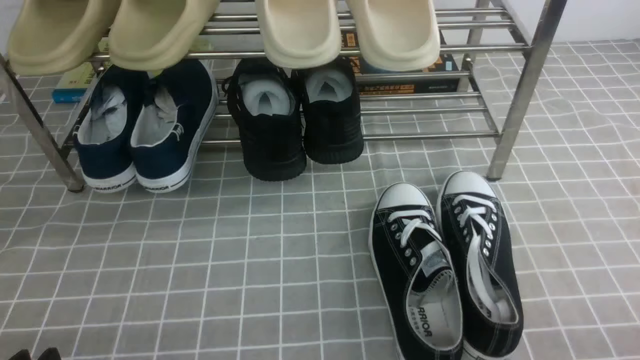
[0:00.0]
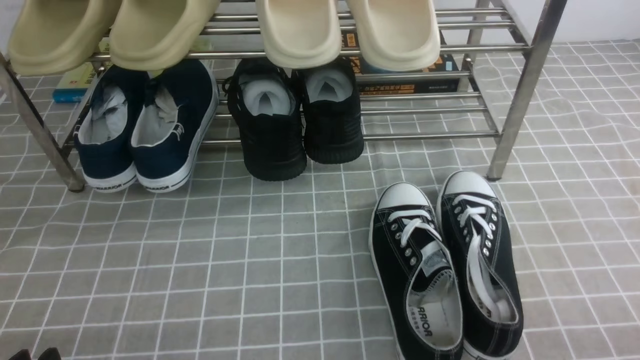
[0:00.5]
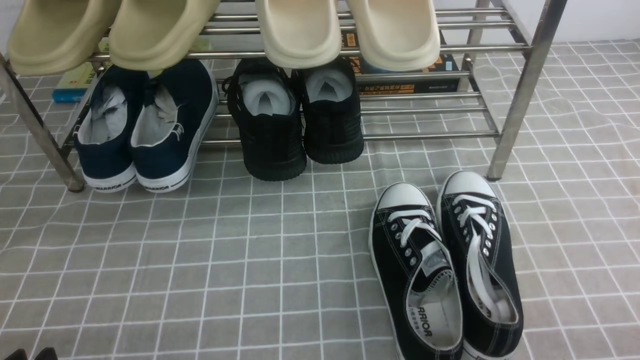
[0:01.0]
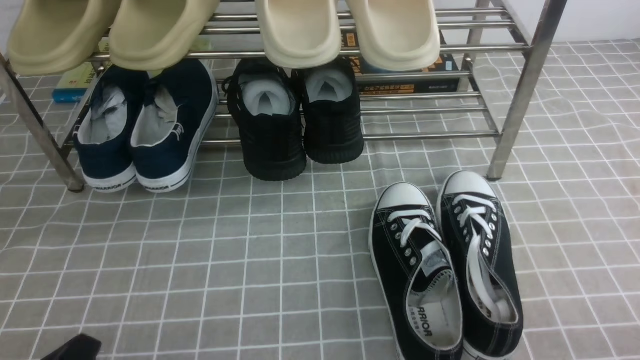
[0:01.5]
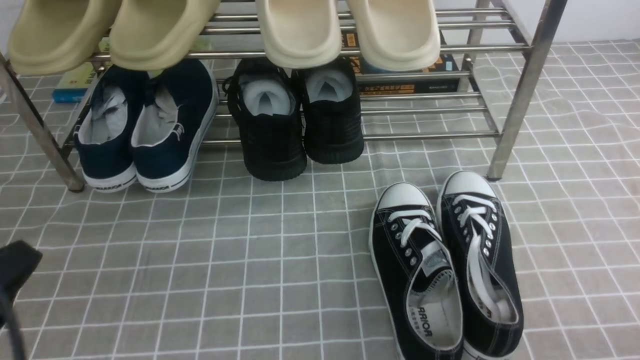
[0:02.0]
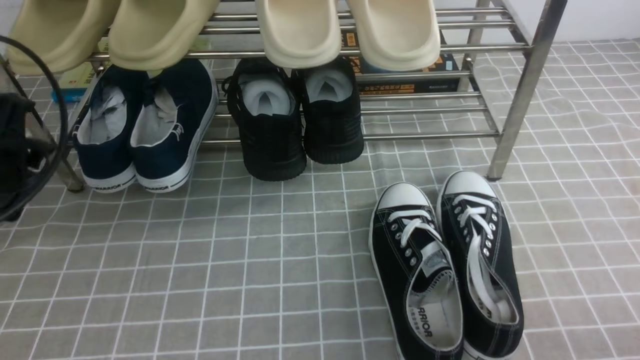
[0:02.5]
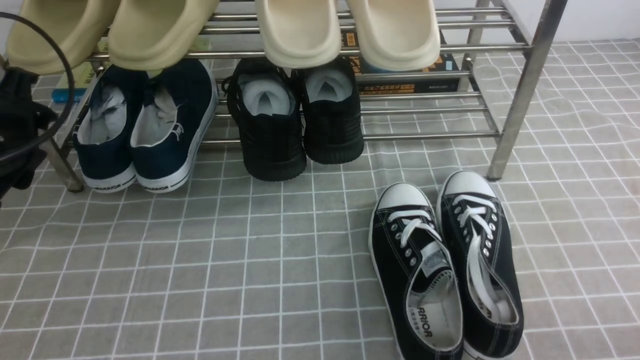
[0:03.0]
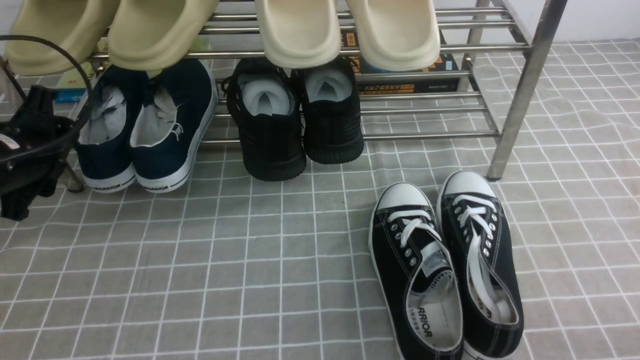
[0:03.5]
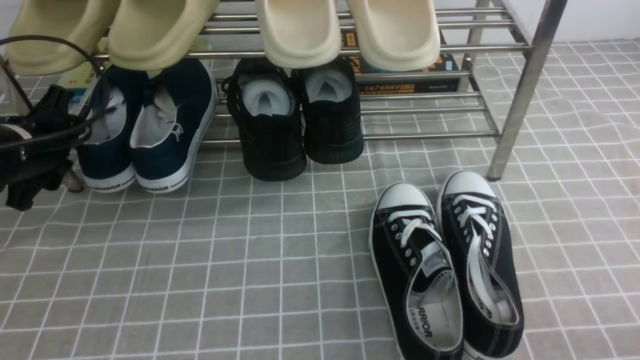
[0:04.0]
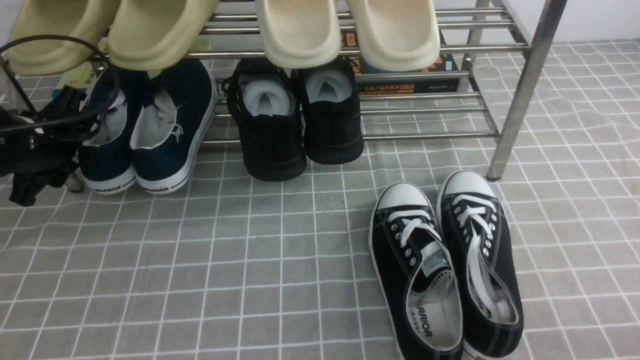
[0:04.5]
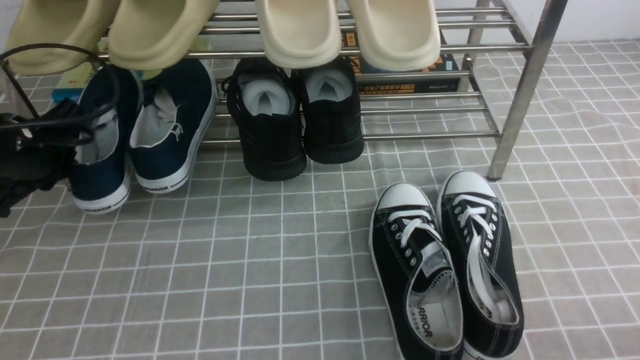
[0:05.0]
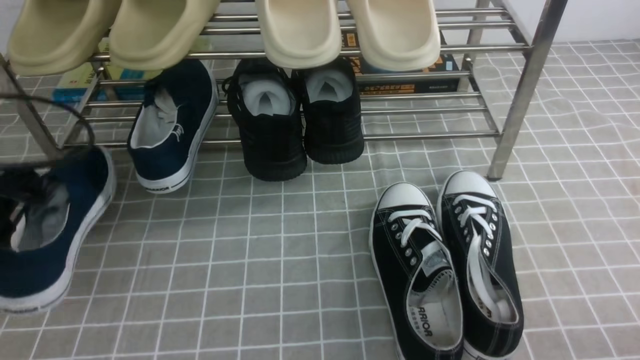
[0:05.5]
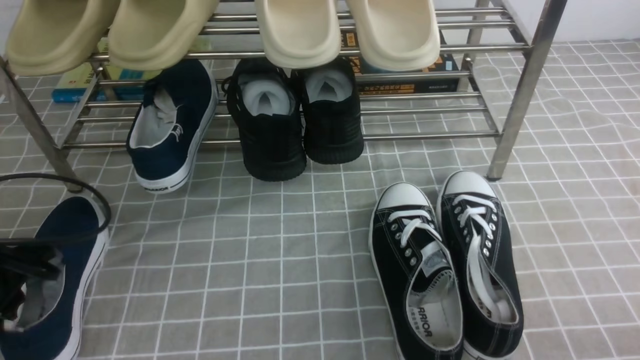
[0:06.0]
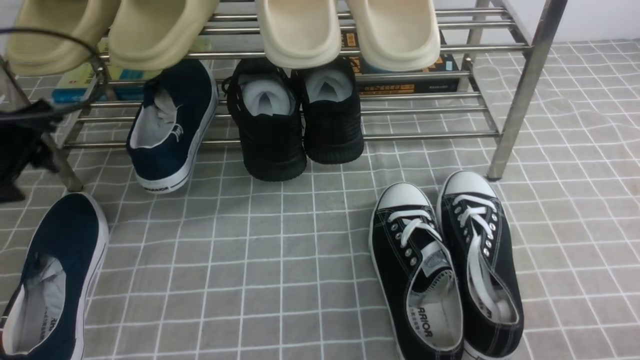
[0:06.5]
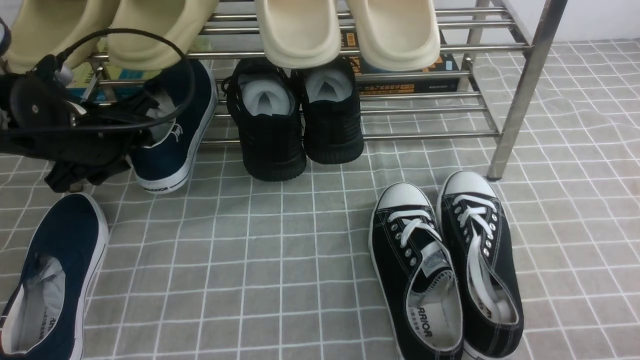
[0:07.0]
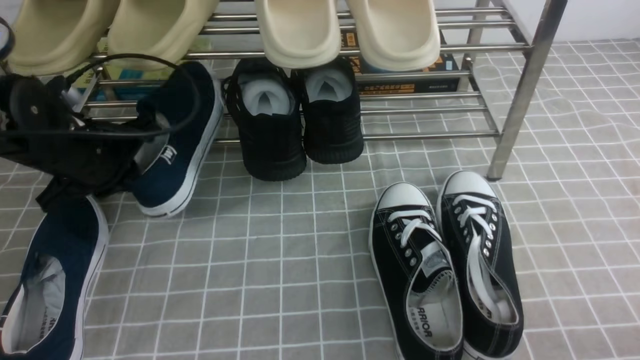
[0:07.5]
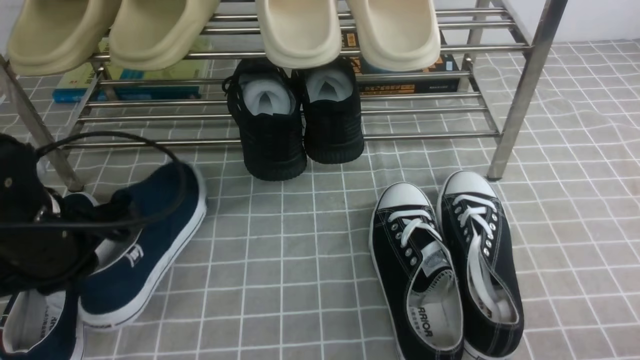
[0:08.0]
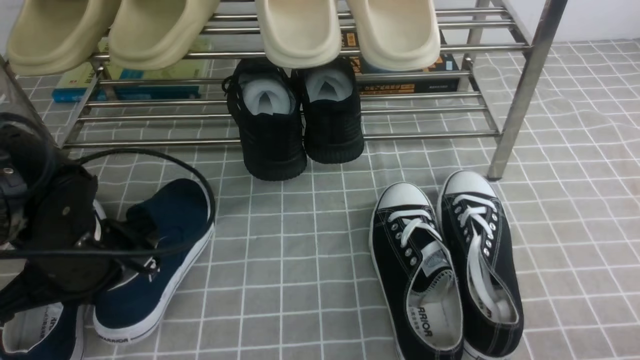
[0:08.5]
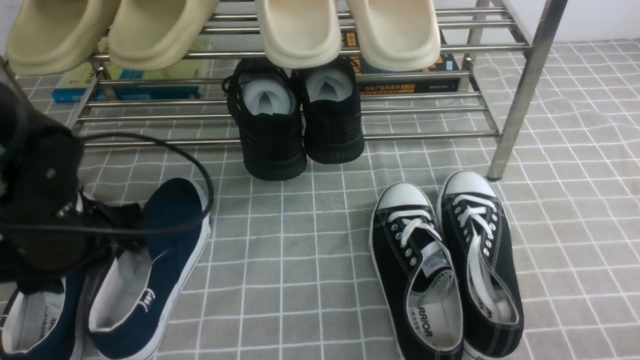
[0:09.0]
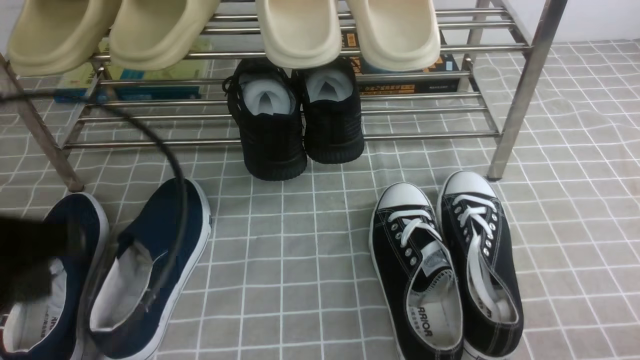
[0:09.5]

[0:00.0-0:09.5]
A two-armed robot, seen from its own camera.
Step, 0:00.0 to 0:04.5: use the left arm to clamp a shoe on the left side of the shoe rack.
Step, 0:05.0 to 0:06.5: Use your left arm to remove the clamped shoe from the shoe rack and put it down.
Step, 0:07.5 to 0:09.0: Use your left arm to remove the clamped shoe from the shoe rack and put it down.
0:00.0 to 0:02.0: The left gripper moves upward, some 10 cm, and closes its fingers.
0:02.0 to 0:04.0: The left gripper is displaced forward by approximately 25 cm, and opens its fingers.
0:04.0 to 0:05.5: The left gripper shifts roughly 10 cm backward, and closes.
0:05.5 to 0:07.5: The left gripper travels to the right and forward by about 10 cm, and opens, then closes again.
0:07.5 to 0:09.5: The left gripper shifts roughly 20 cm backward and upward.

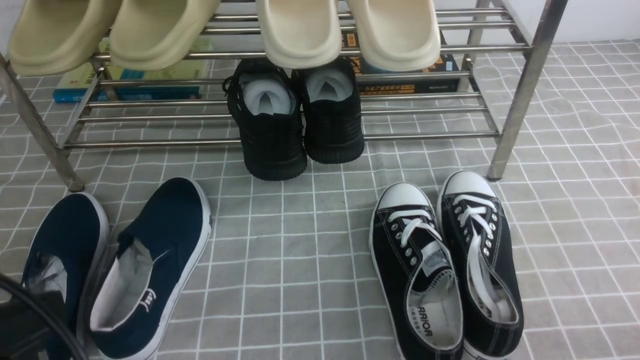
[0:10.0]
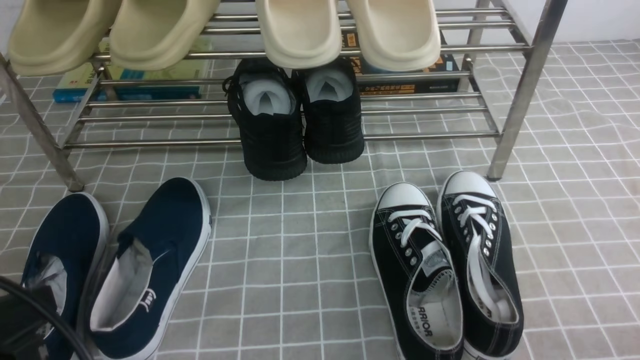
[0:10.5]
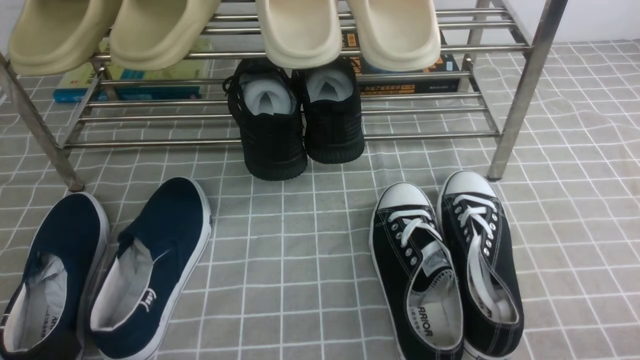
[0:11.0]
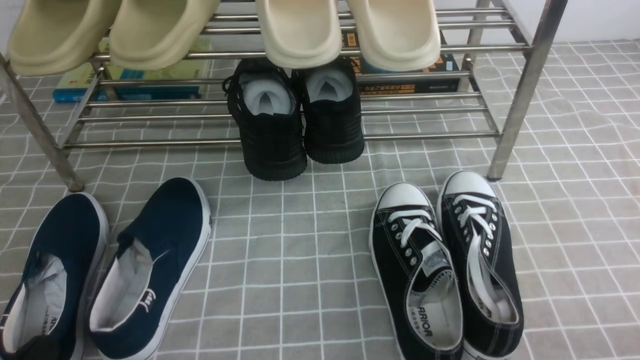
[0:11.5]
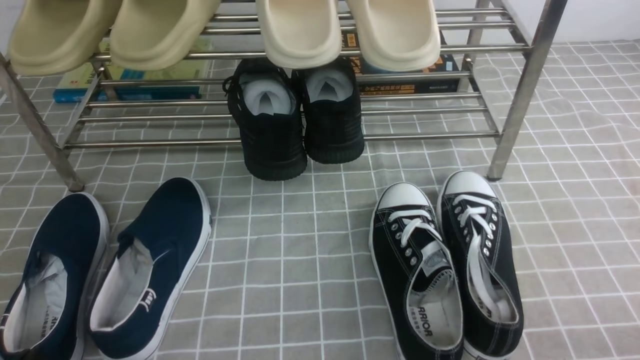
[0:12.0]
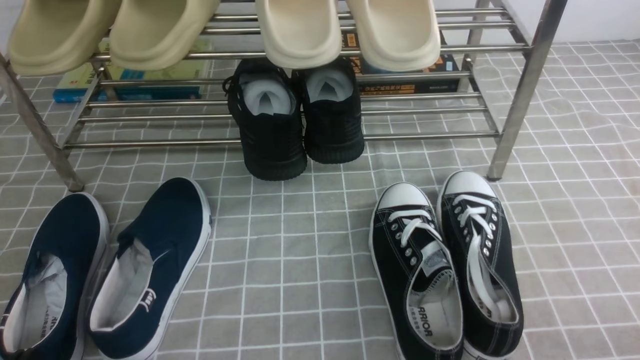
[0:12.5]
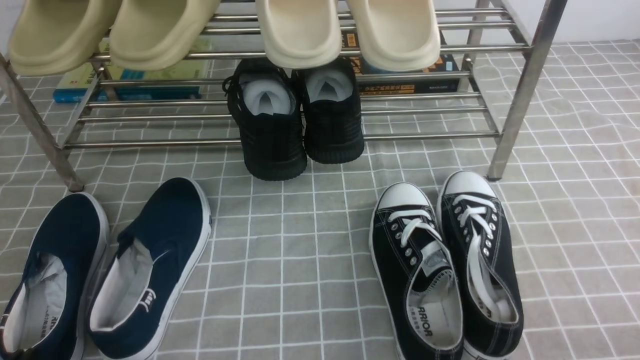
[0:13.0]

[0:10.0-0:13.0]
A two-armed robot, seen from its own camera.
0:10.0 to 0:11.5: The left gripper shifts about 15 cm downward.

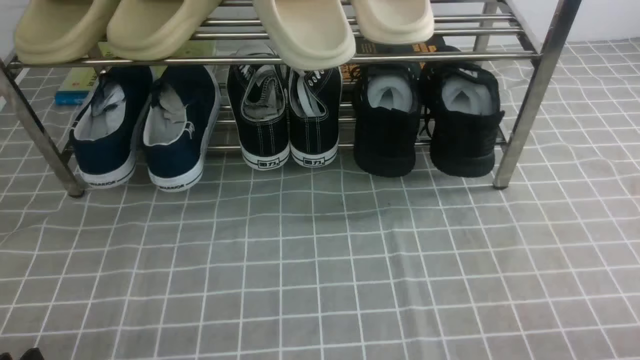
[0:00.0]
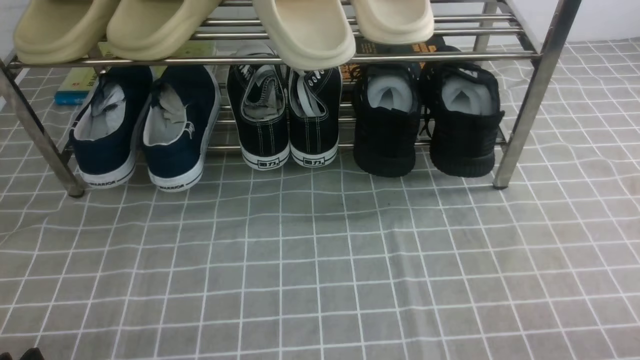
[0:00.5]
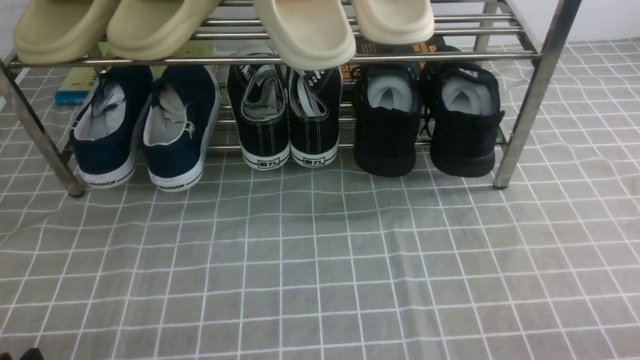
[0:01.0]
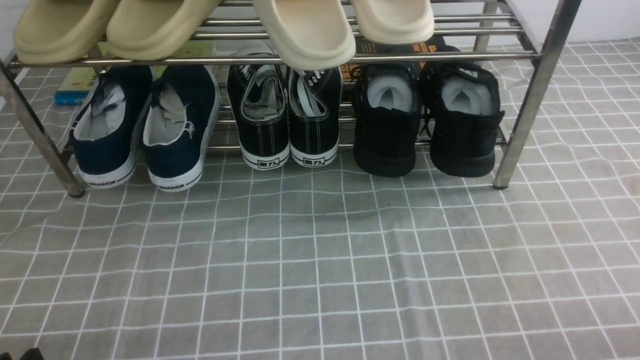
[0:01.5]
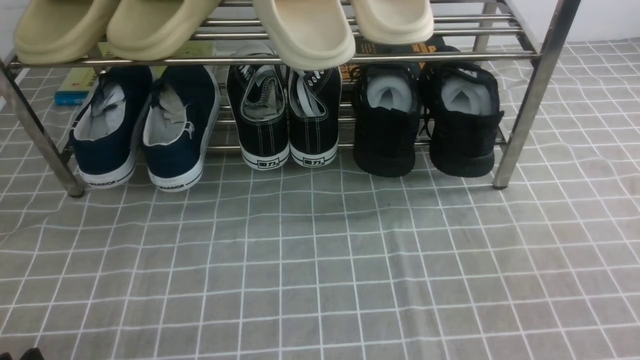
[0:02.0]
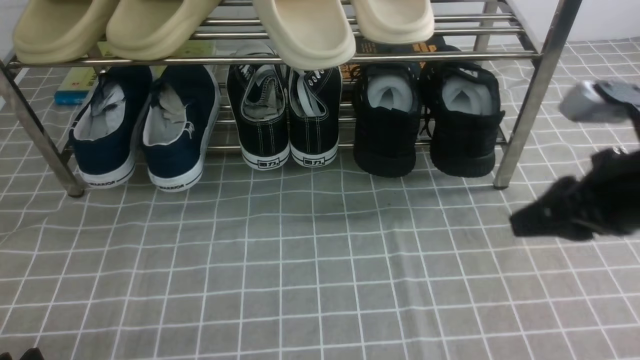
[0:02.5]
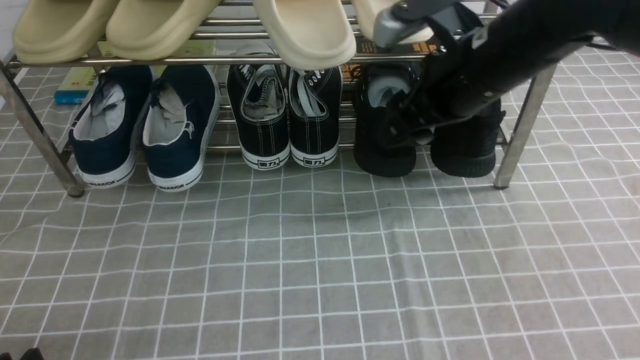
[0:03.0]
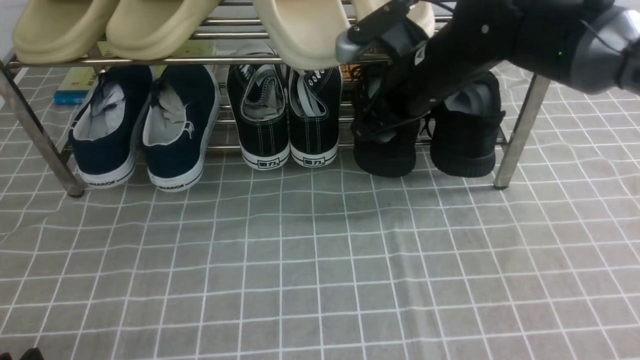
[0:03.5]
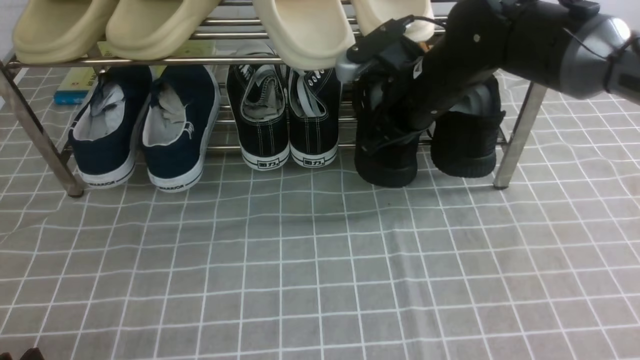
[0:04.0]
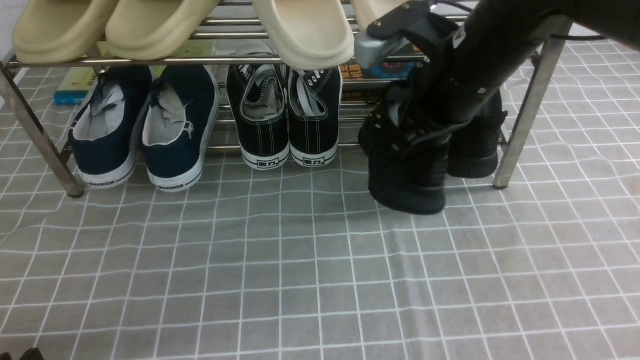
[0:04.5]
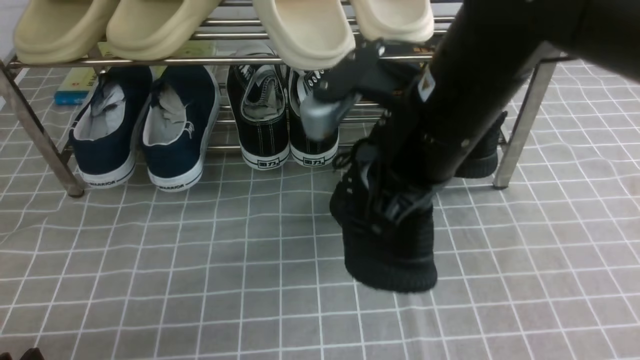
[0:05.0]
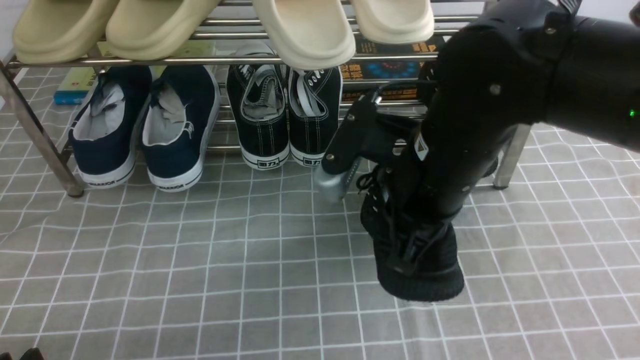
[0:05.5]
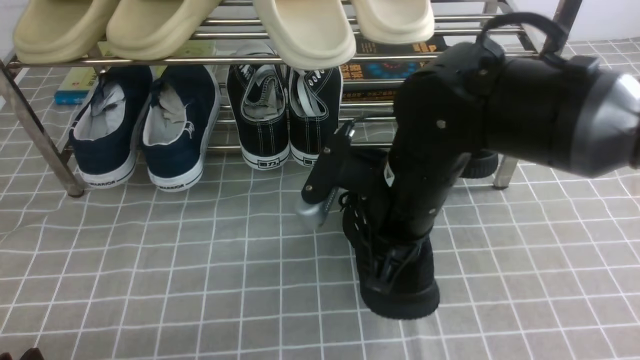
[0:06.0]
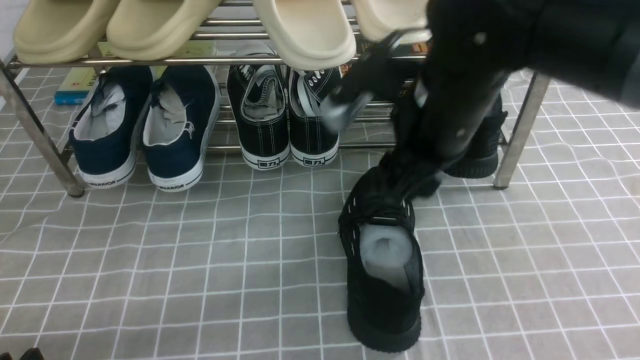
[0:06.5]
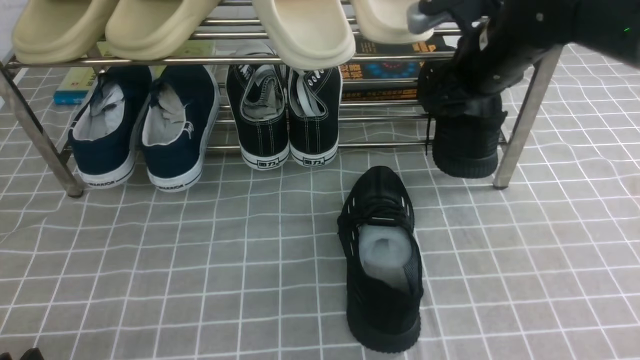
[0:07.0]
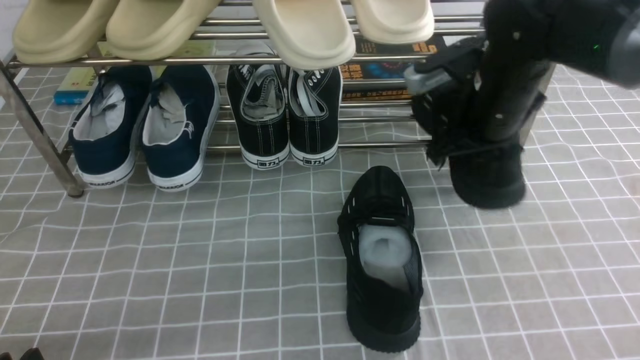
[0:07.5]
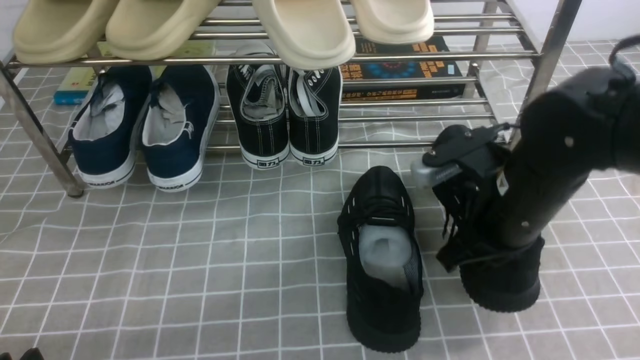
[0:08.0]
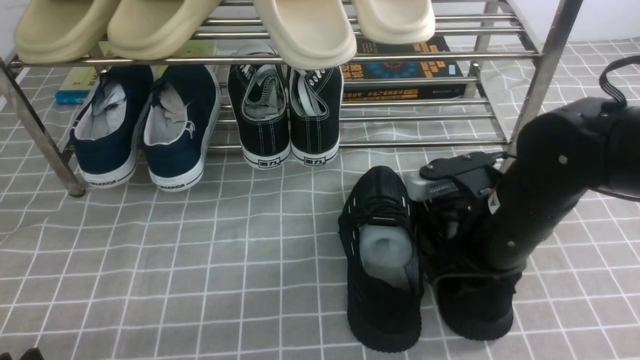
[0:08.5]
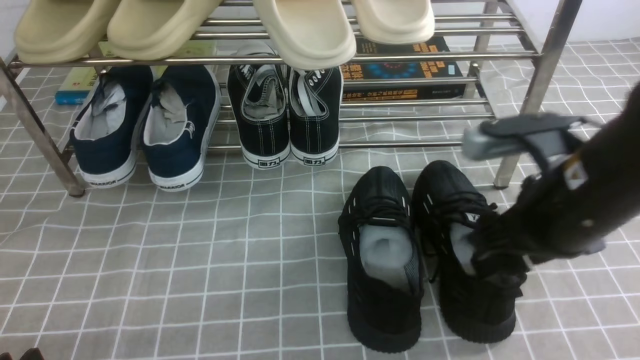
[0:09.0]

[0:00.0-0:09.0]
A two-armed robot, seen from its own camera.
Step, 0:00.0 to 0:04.0: use the right arm to clamp a shoe on the right side of the shoe rack.
Step, 0:04.5 to 0:06.0: use the right arm to take out the clamped shoe from the shoe rack and put it down.
Step, 0:06.5 to 0:07.5: use the right arm to clamp a shoe on the right side of the shoe rack.
Step, 0:08.0 to 0:08.5: use the right arm to take out the clamped shoe from the shoe rack and put it down.
0:02.0 to 0:04.5: The right gripper goes approximately 30 cm forward and to the left, and opens, then closes once more.
0:04.5 to 0:07.0: The right gripper travels forward by roughly 5 cm, and opens up.
0:07.0 to 0:09.0: The right gripper shifts about 15 cm backward, and closes, then opens again.
